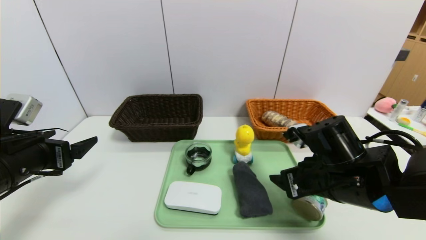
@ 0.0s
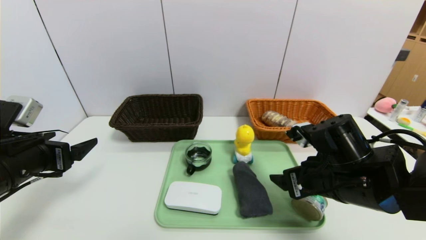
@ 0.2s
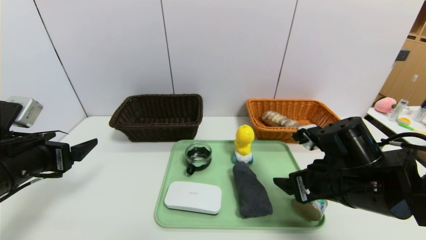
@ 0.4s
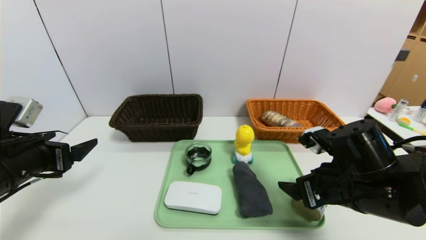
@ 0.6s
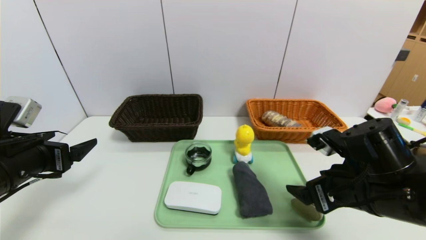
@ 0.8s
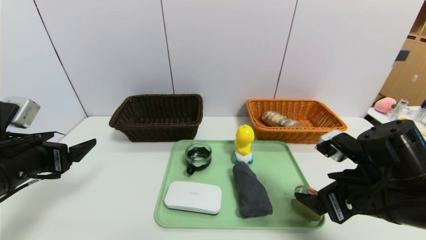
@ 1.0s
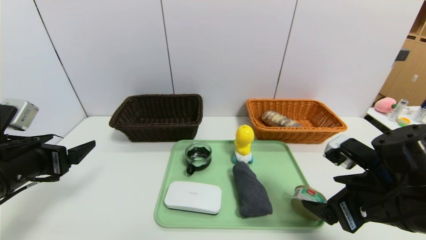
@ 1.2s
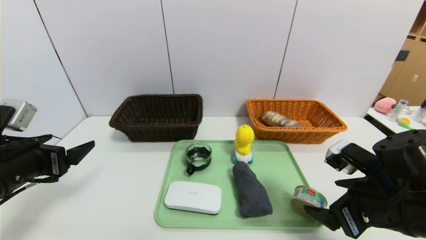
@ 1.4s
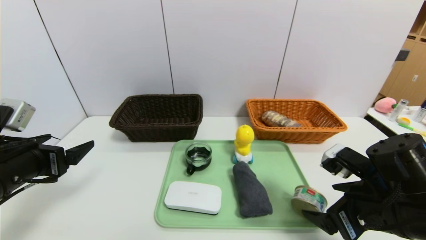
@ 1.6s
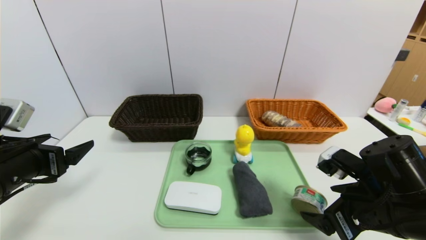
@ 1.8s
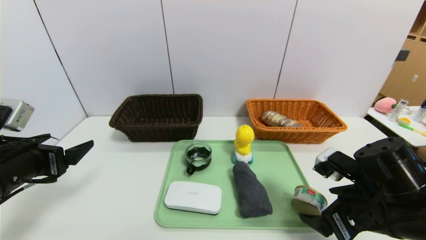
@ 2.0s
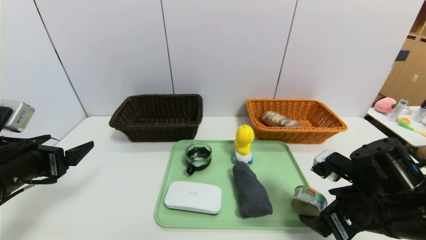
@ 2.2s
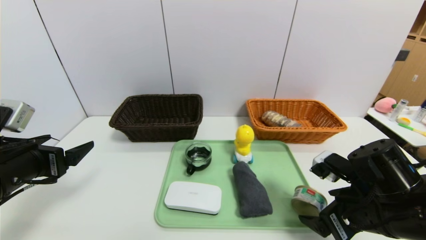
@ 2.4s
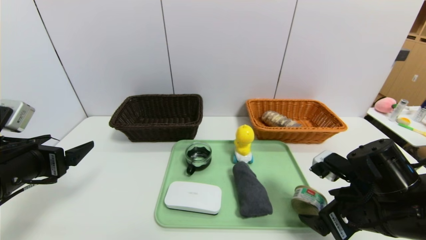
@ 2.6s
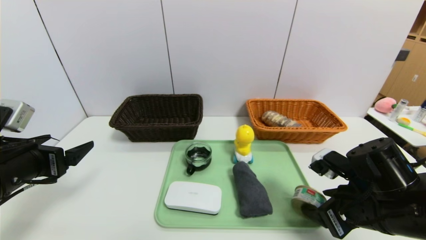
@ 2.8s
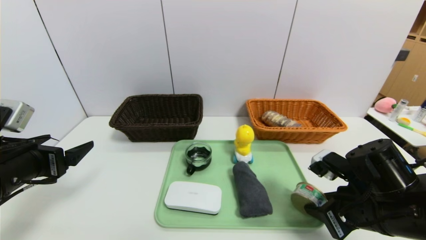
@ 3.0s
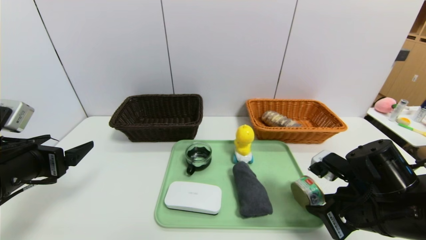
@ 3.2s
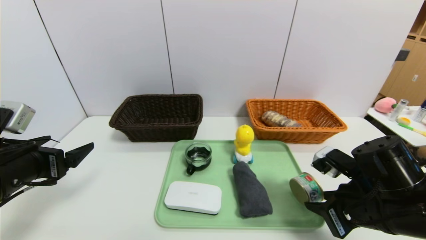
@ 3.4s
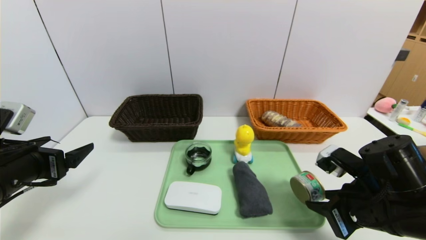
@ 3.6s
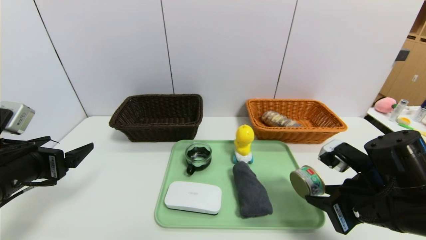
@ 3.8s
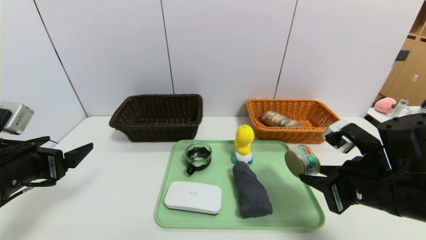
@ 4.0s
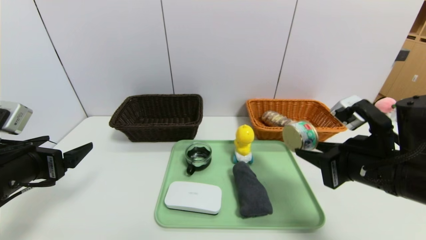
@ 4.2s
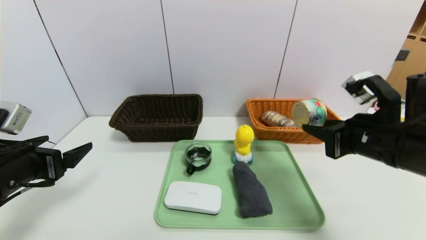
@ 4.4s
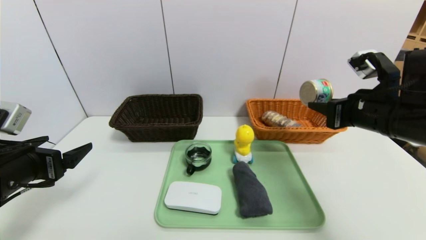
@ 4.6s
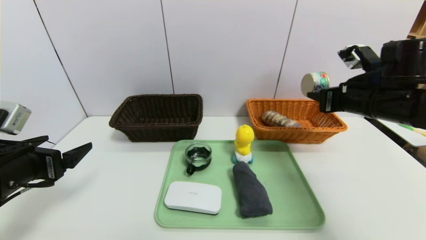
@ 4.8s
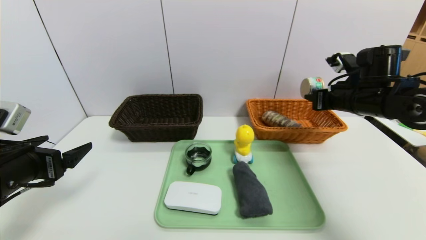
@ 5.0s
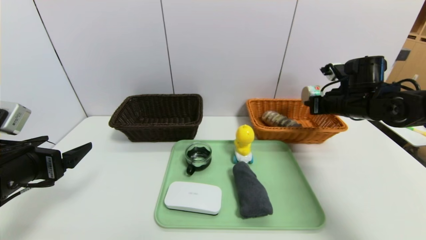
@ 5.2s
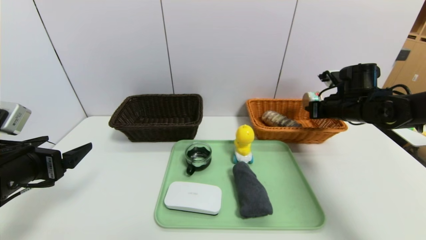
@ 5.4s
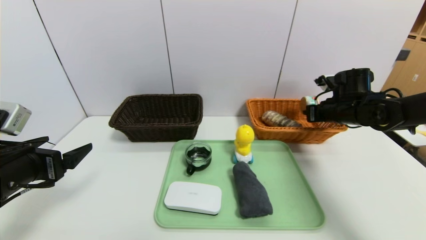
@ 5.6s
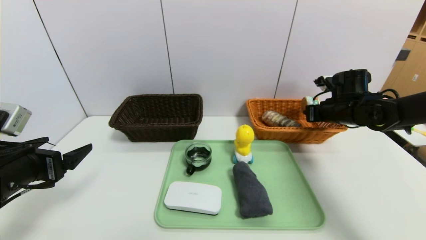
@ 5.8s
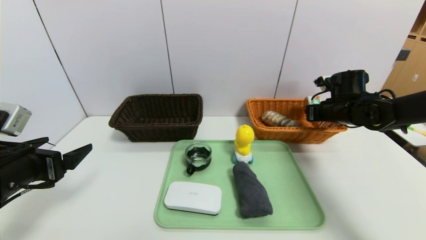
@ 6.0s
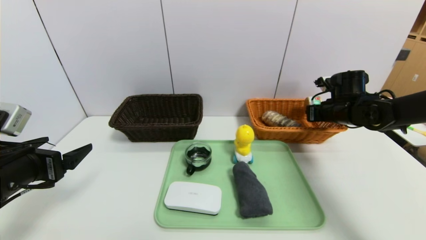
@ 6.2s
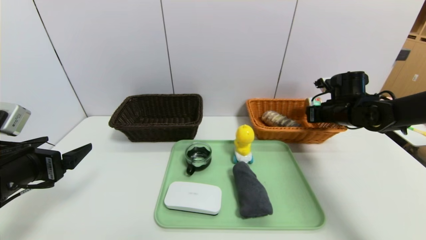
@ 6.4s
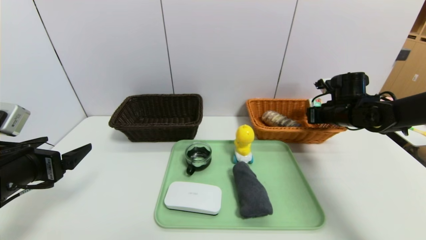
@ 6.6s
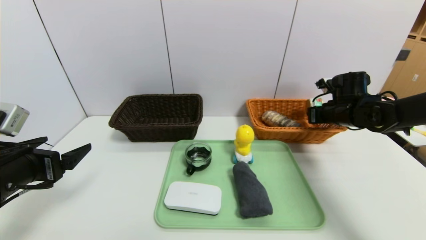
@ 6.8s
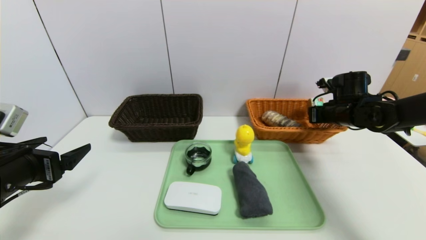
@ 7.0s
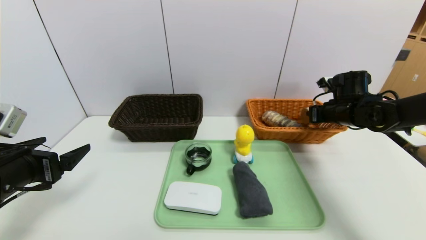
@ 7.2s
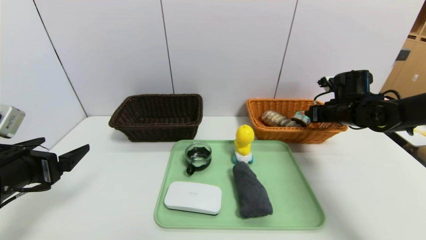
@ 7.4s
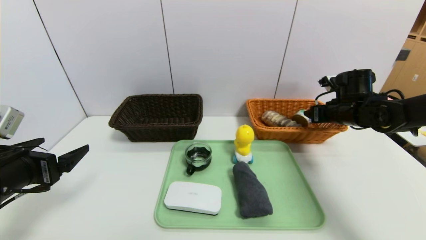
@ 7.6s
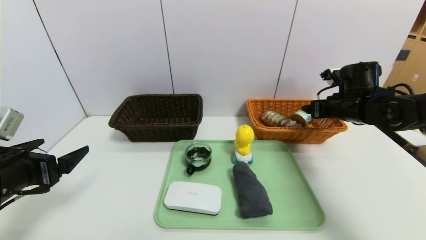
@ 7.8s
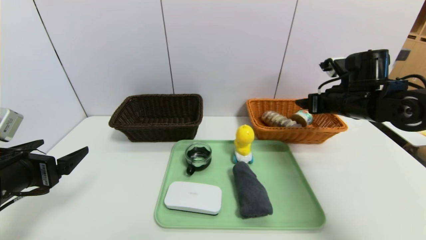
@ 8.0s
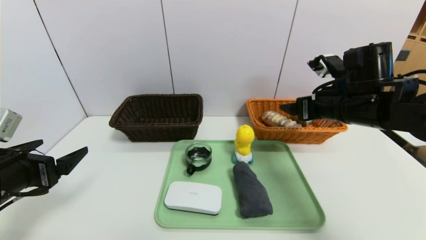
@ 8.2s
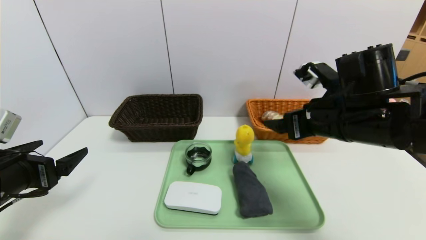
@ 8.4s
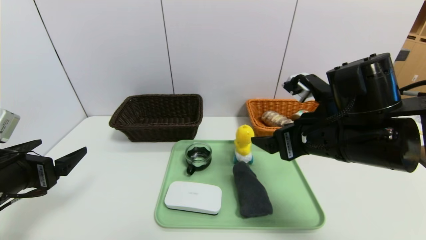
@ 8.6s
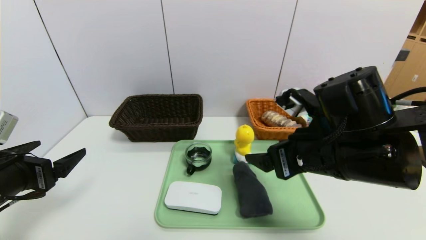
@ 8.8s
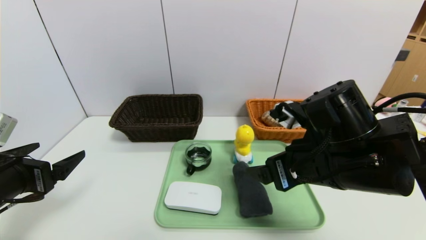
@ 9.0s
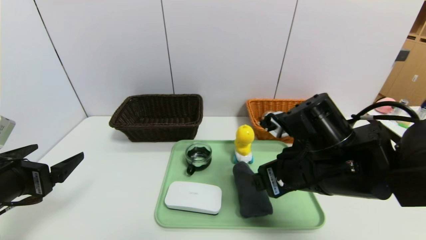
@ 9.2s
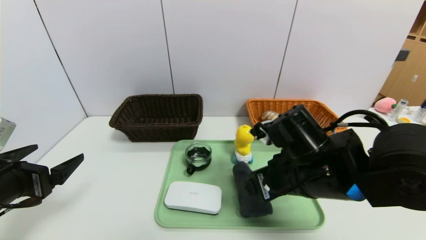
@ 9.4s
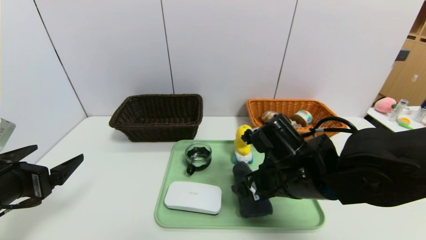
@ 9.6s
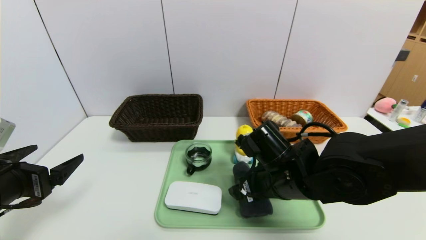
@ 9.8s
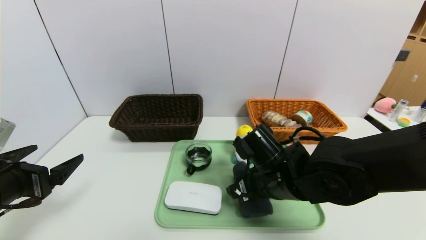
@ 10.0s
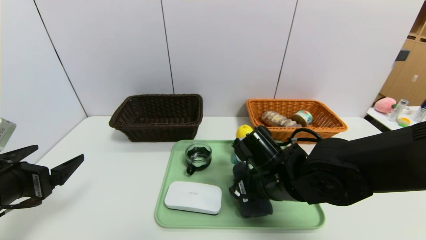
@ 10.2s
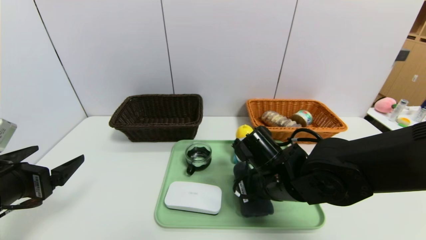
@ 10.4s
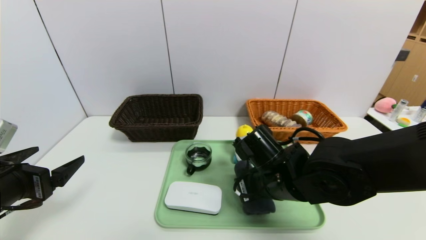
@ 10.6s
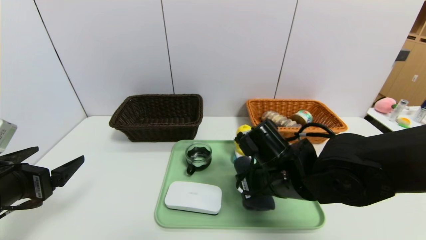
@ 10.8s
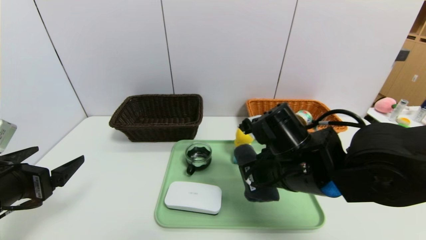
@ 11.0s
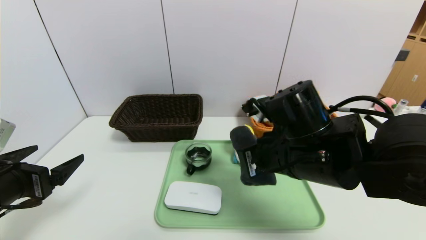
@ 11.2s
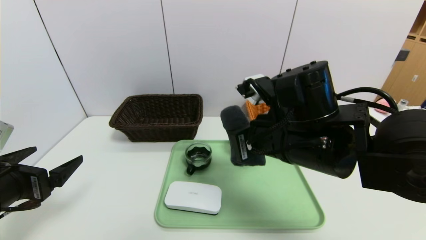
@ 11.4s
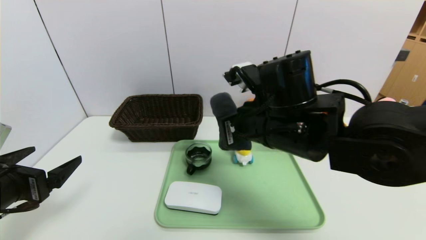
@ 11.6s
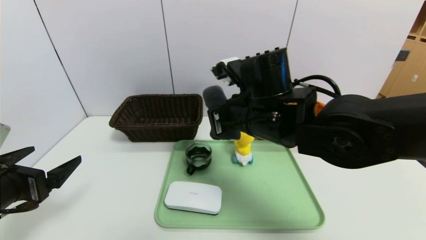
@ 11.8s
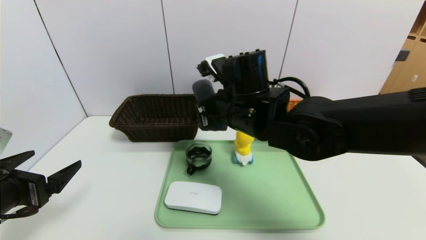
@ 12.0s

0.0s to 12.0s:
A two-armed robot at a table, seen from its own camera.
Task of the whole recording: place the food in the right basket with the right gripper, and place the non food items in the left basket with the left gripper.
Step, 0.0s to 7.2s: Grasp the can and put it in the right basket.
0.0s to 1.6s: The right gripper goes roughly 10 cm backward and to the right.
1.6s to 3.0s: The right gripper closes.
3.0s to 4.4s: The right gripper travels upward by about 10 cm.
4.4s to 6.0s: The right gripper shifts some 20 cm forward.
6.0s to 7.6s: The right gripper opens its fingers.
7.6s to 9.0s: The right gripper goes approximately 25 cm backward and to the left.
9.0s to 10.4s: The right gripper shifts some 10 cm downward and to the left, and closes up.
10.4s to 12.0s: The right gripper travels upward, to the left and forward by approximately 15 cm, and closes up.

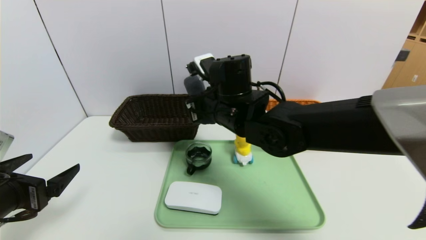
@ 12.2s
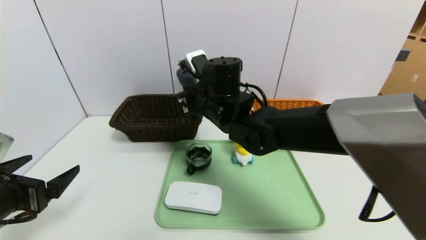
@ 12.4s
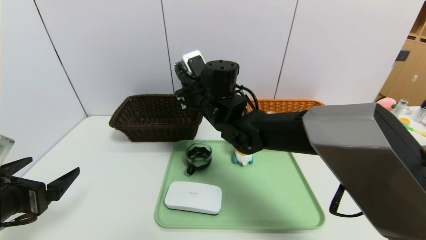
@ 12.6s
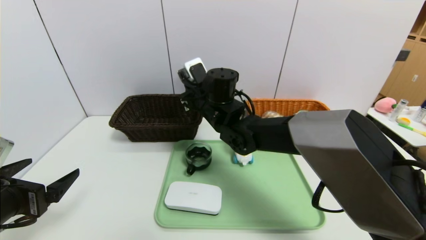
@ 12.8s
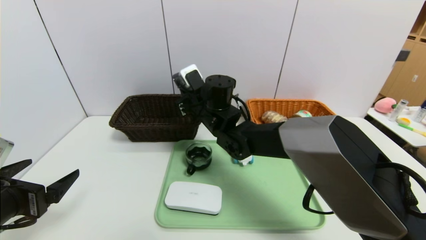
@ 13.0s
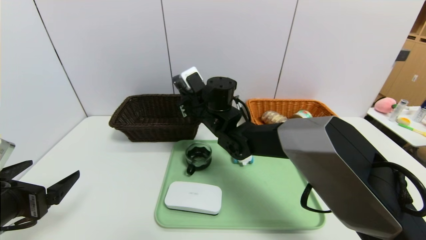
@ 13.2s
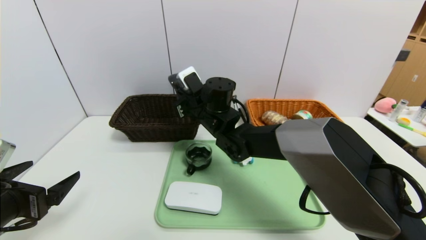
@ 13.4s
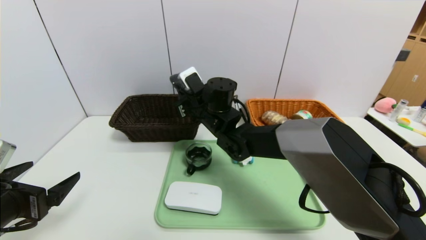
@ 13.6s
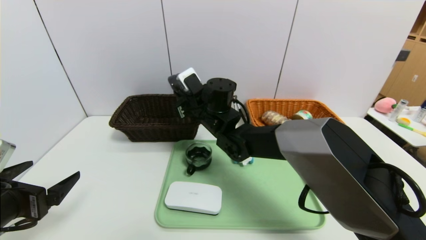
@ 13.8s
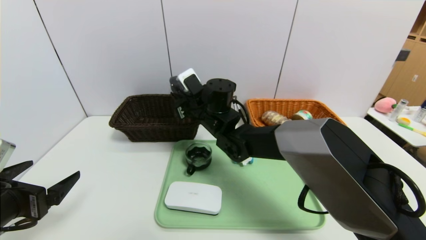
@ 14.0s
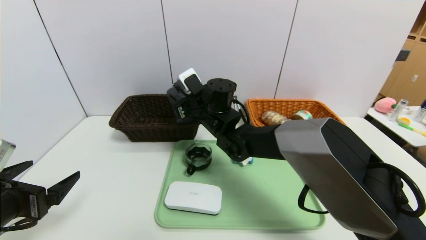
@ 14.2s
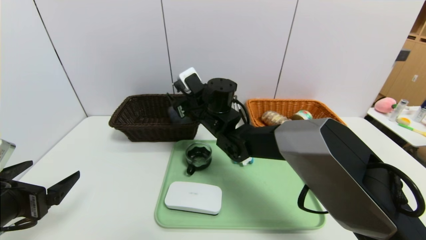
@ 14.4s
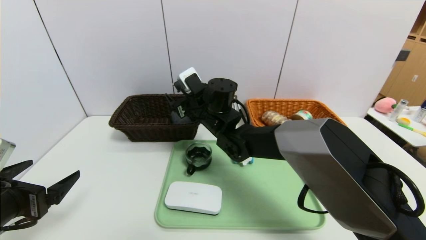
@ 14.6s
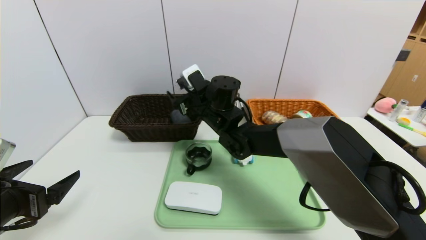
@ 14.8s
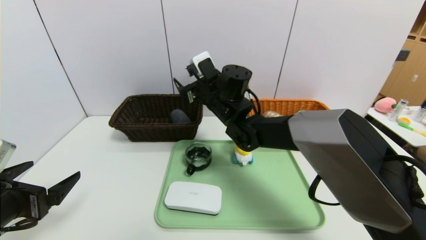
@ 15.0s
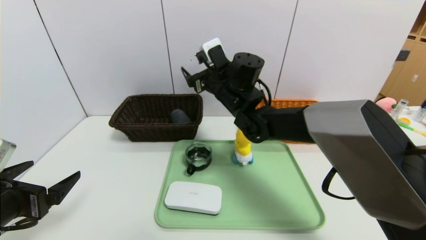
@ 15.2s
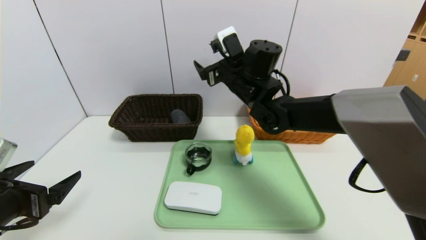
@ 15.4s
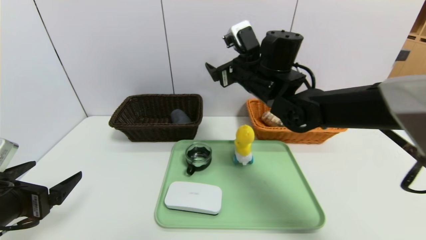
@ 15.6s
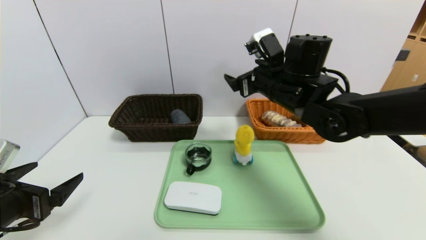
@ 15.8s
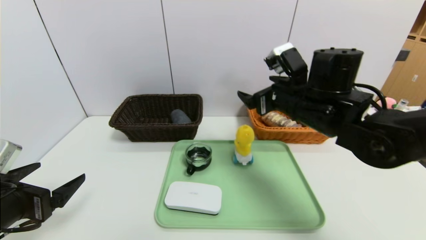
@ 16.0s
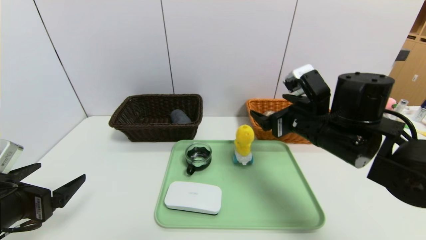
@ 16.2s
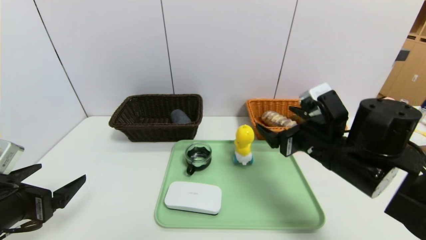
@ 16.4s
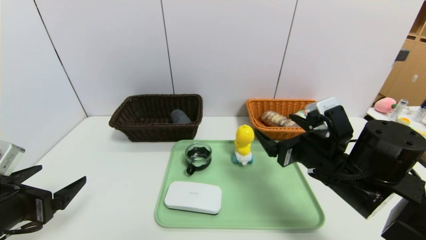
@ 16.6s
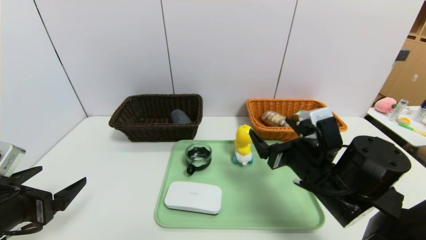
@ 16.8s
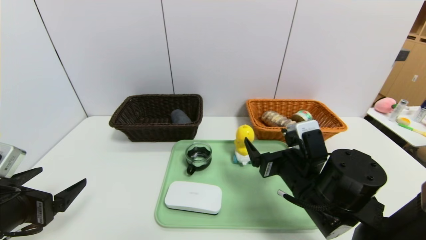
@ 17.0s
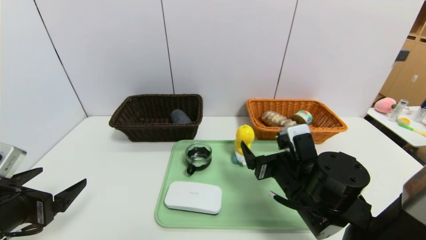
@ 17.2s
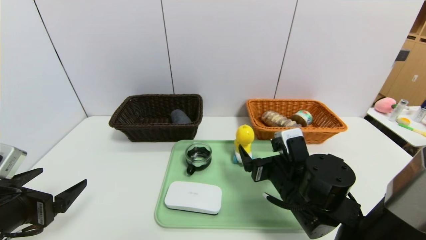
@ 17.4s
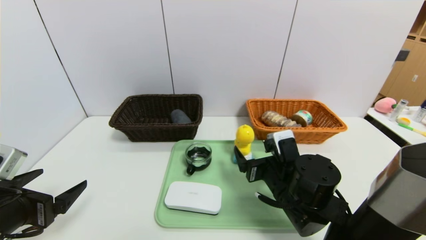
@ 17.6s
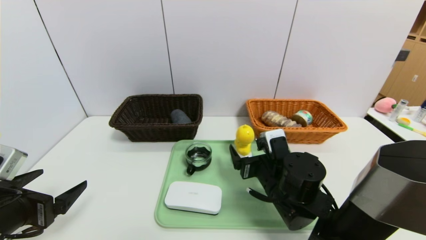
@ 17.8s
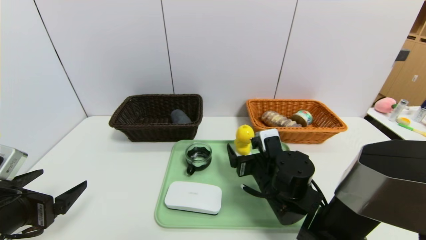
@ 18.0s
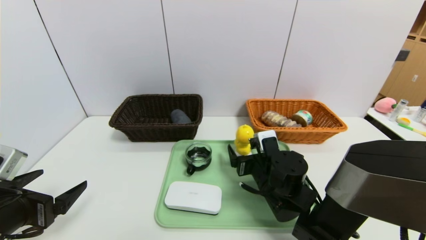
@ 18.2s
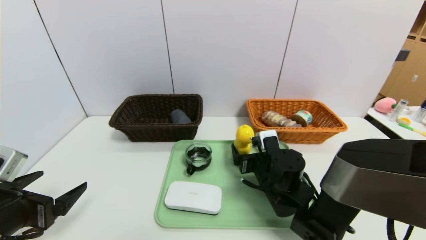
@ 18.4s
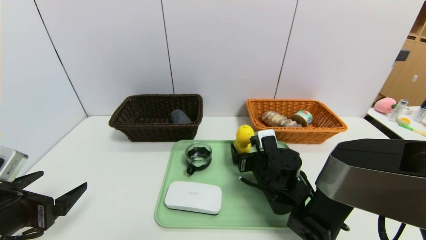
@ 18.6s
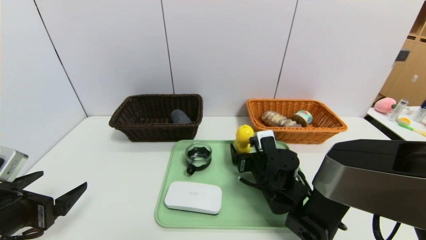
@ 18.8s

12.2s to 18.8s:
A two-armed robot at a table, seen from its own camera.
Task of the whole recording: place the food in the right basket with the right gripper, and place the non food items in the left basket with the left gripper.
12.2s to 13.8s: The right gripper heads forward, covering roughly 5 cm.
13.8s to 15.4s: The right gripper is displaced to the right and upward by some 10 cm, and opens.
15.4s to 17.2s: The right gripper heads backward, downward and to the right, covering roughly 25 cm.
17.2s to 18.8s: The right gripper is displaced forward and downward by about 10 cm.
